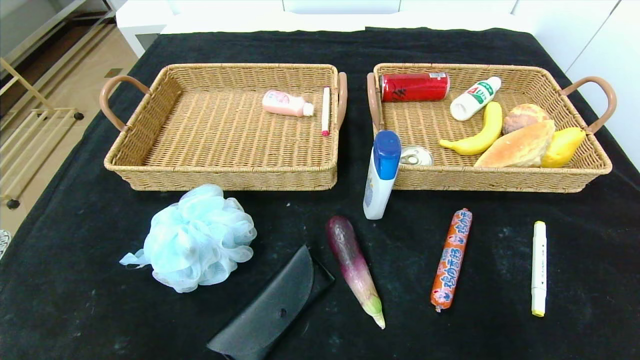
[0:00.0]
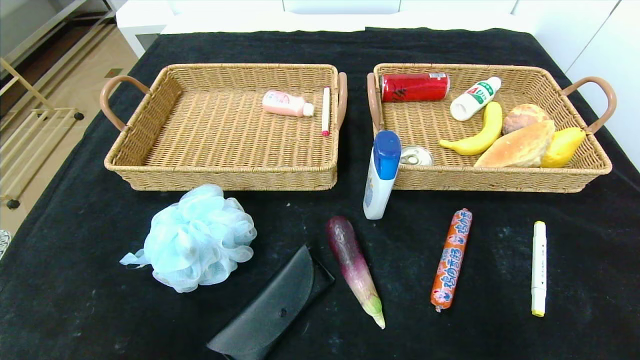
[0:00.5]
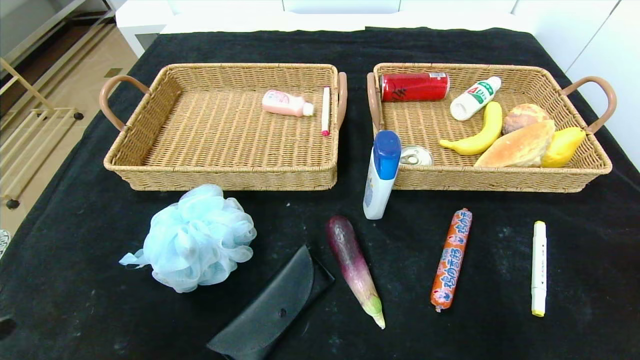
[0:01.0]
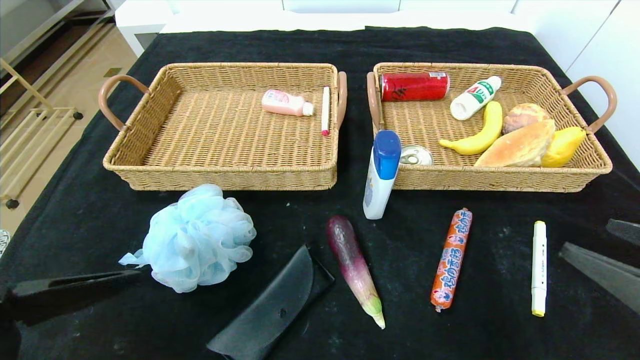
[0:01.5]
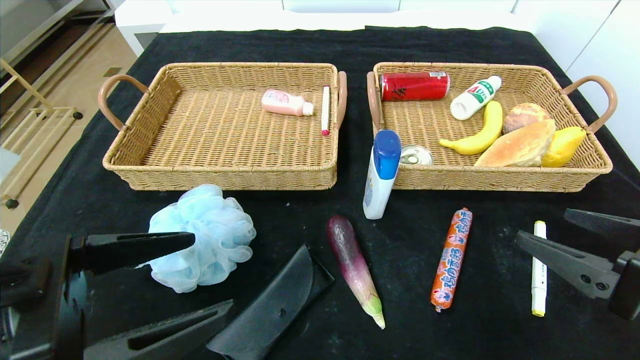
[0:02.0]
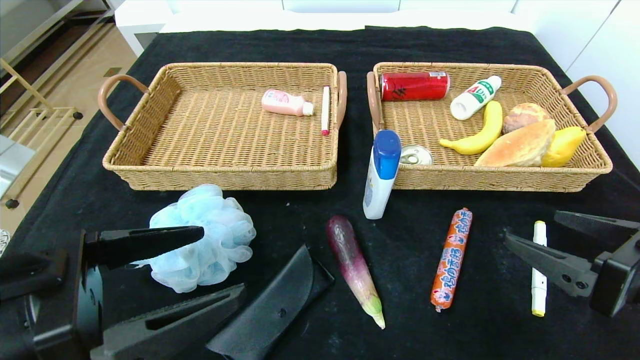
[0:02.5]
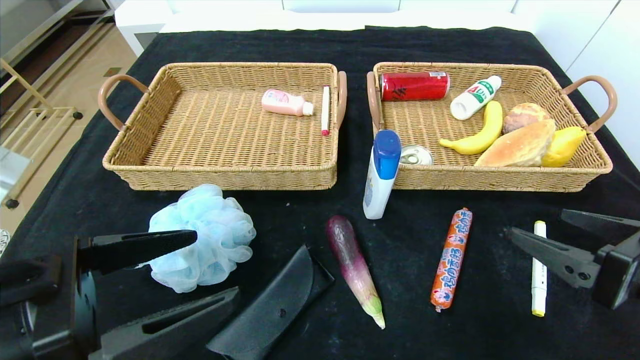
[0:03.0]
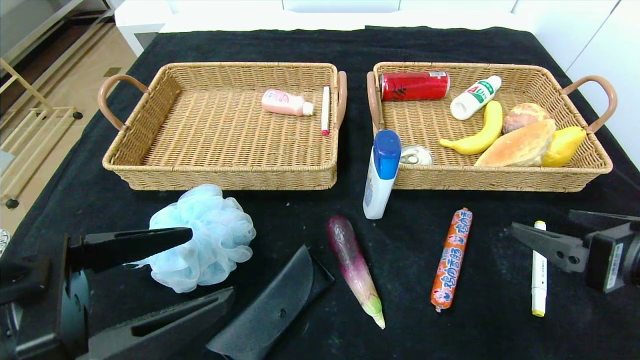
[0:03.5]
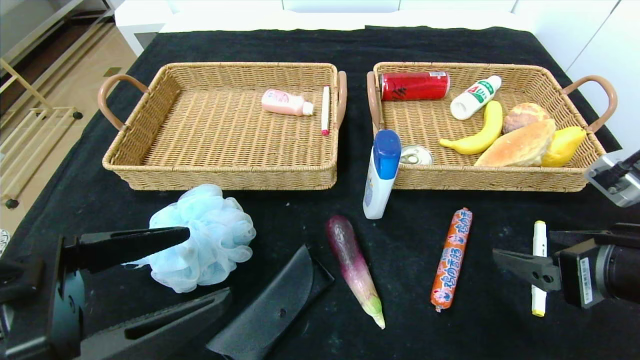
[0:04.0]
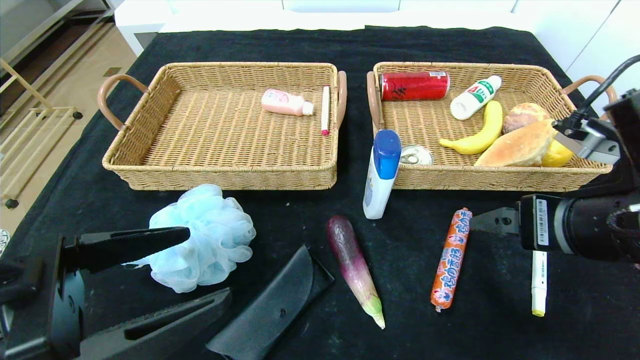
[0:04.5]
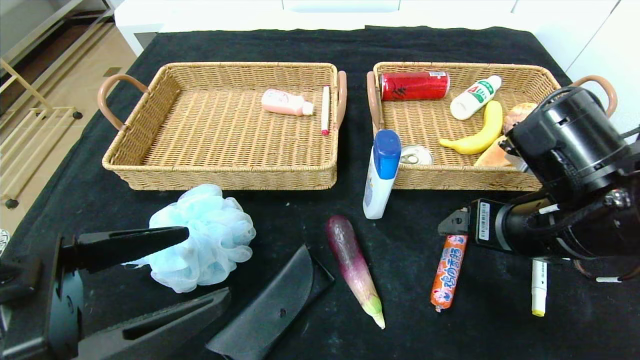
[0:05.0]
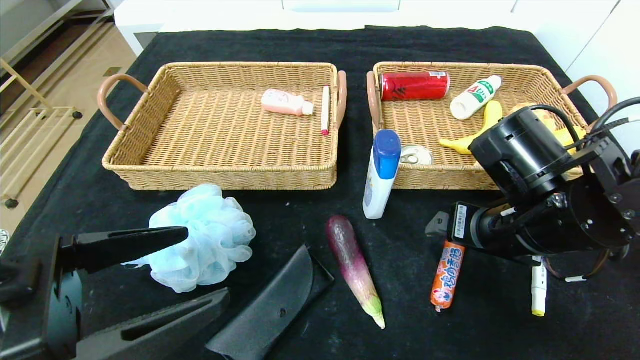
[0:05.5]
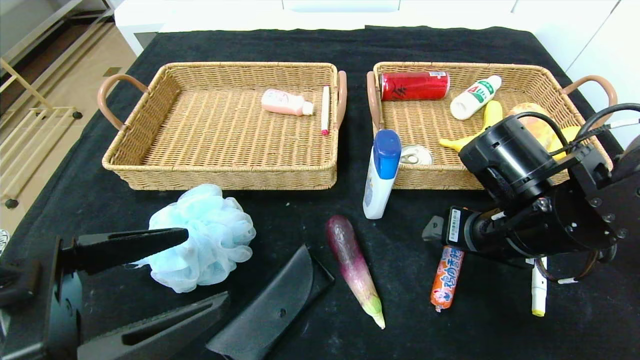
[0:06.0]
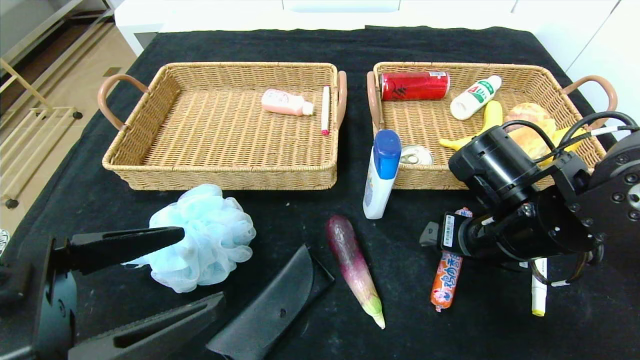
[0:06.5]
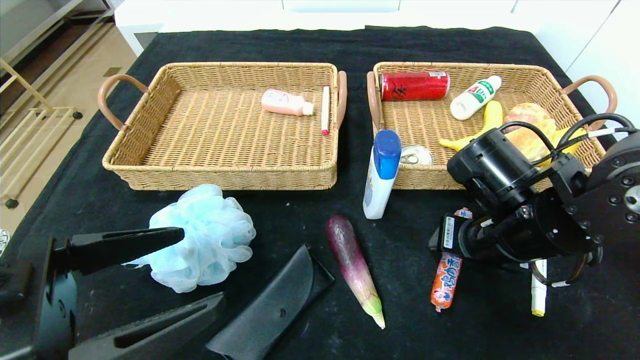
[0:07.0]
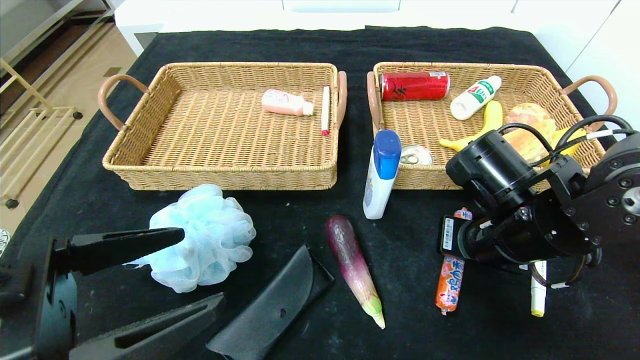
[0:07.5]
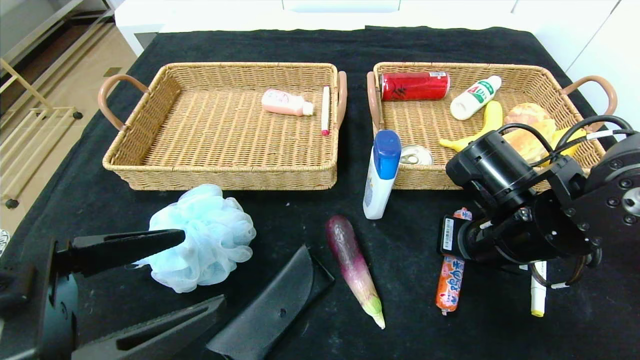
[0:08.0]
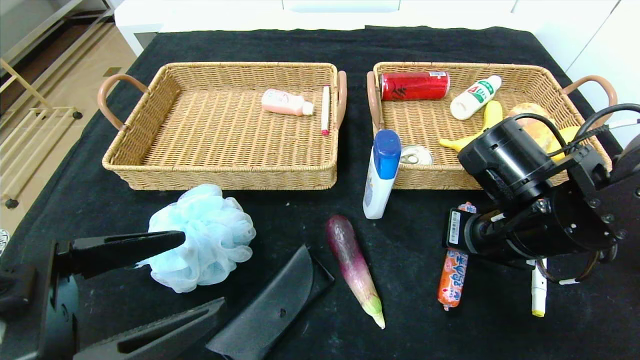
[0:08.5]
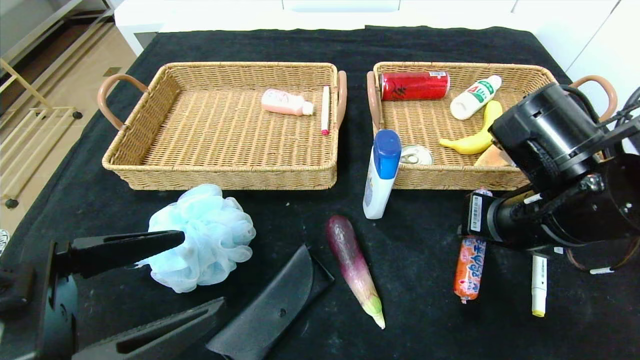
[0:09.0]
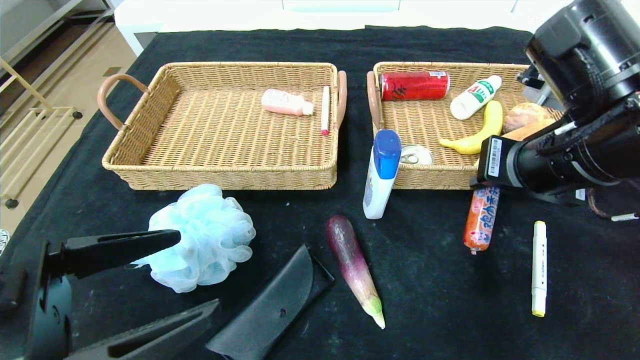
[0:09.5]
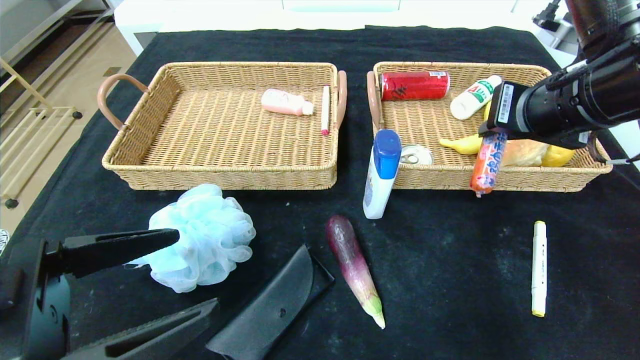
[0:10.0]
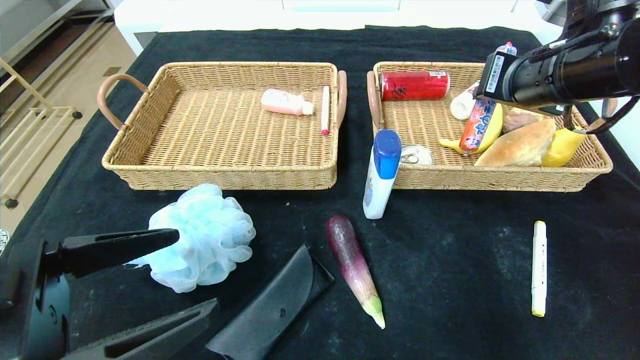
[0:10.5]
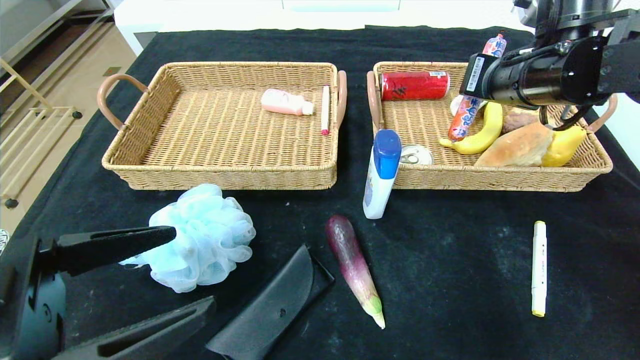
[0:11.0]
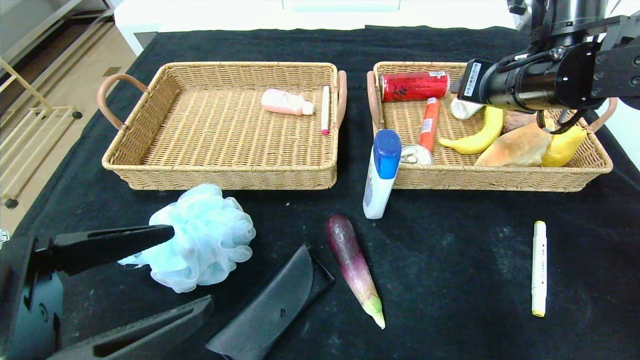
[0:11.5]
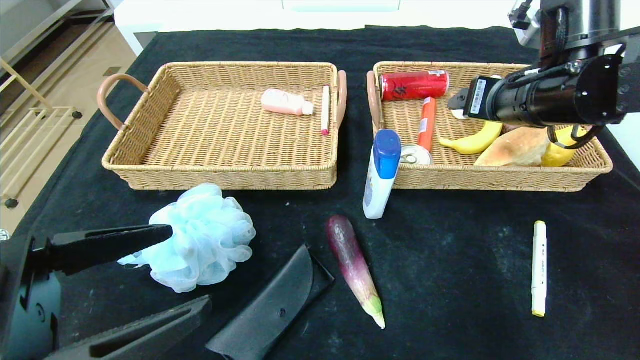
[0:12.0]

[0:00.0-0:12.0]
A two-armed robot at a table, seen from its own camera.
Step, 0.0 to 11.5 s: Grasp the sausage and put it in the right basket.
0.0 to 2.0 s: The right gripper goes some 25 cm forward, upward and to the left, while the left gripper goes roughly 25 cm upward, forward and to the right.
4.0 to 6.0 s: The right gripper heads forward and to the left, covering roughly 10 cm.
6.0 to 8.0 s: The right gripper closes up.
8.0 to 10.0 s: The right gripper goes roughly 15 cm upward.
10.0 to 12.0 s: The right gripper goes about 5 cm forward, and opens.

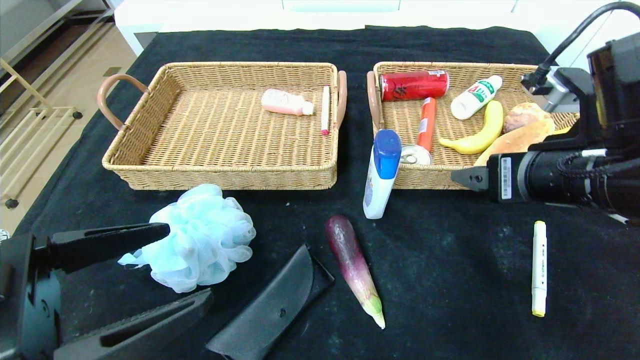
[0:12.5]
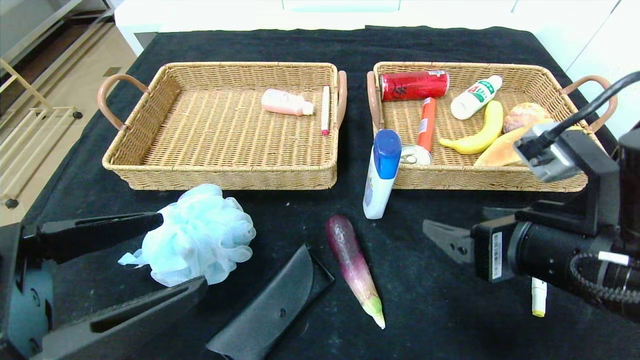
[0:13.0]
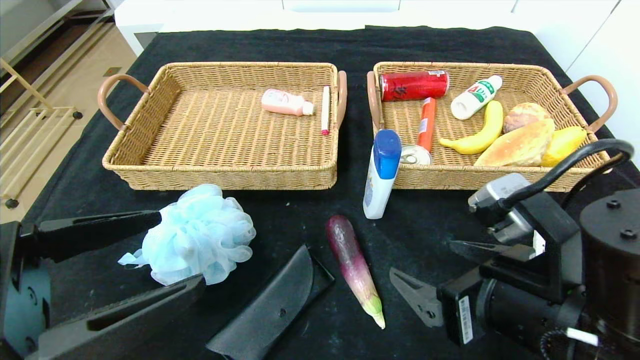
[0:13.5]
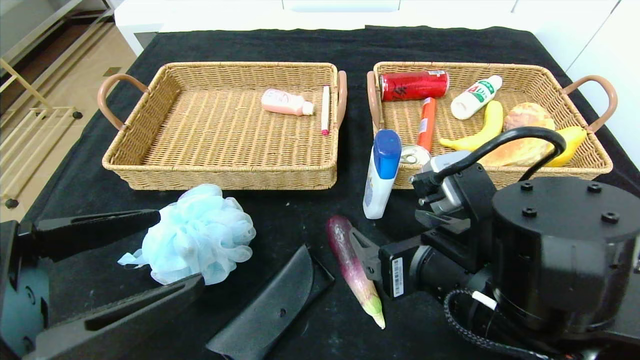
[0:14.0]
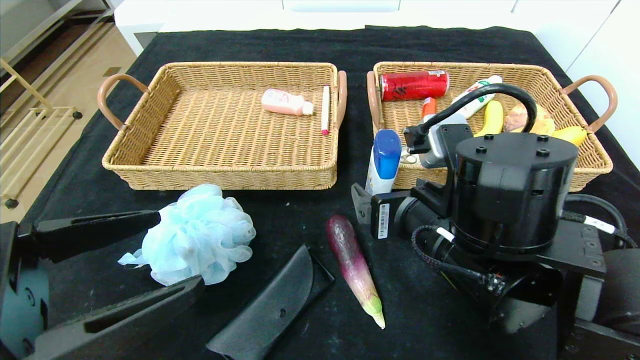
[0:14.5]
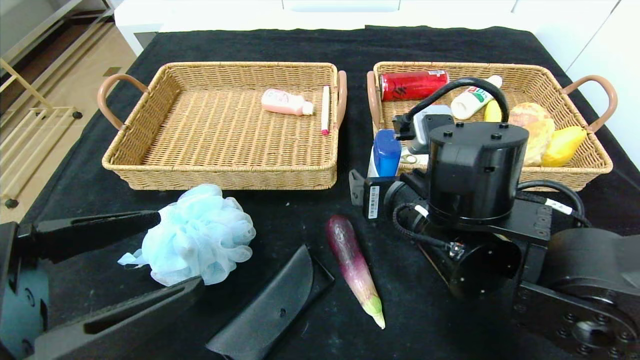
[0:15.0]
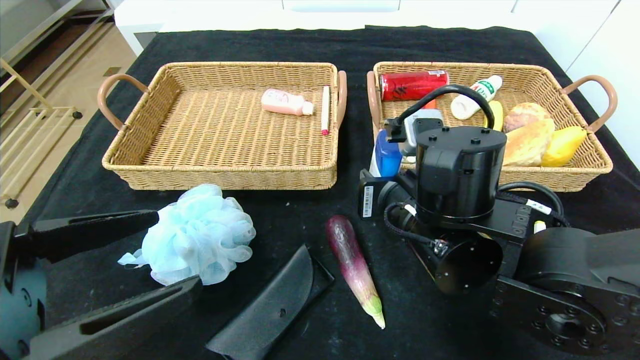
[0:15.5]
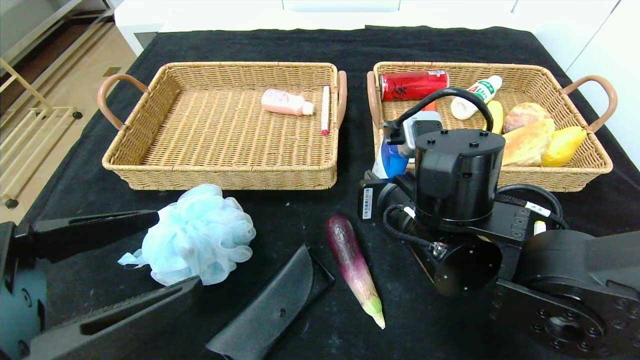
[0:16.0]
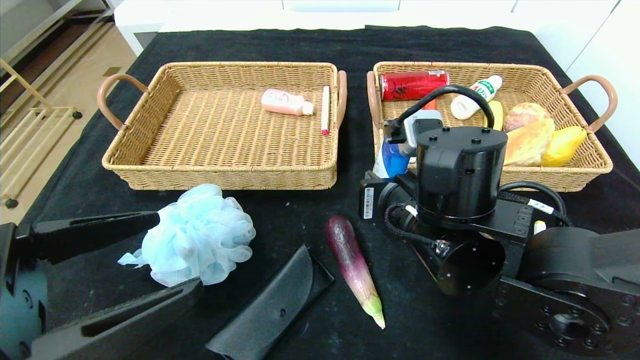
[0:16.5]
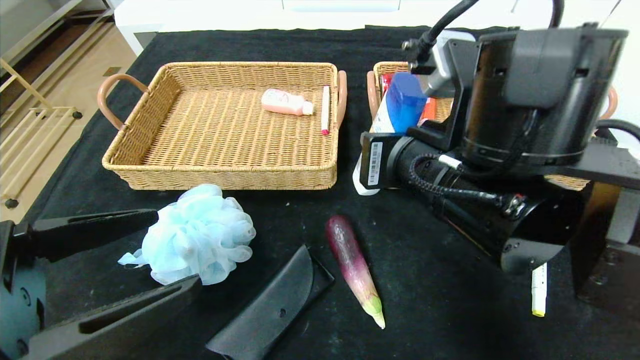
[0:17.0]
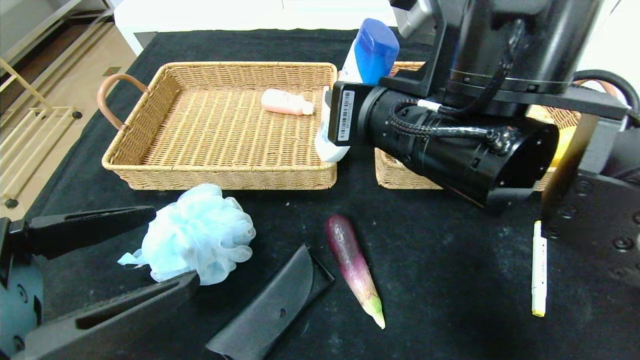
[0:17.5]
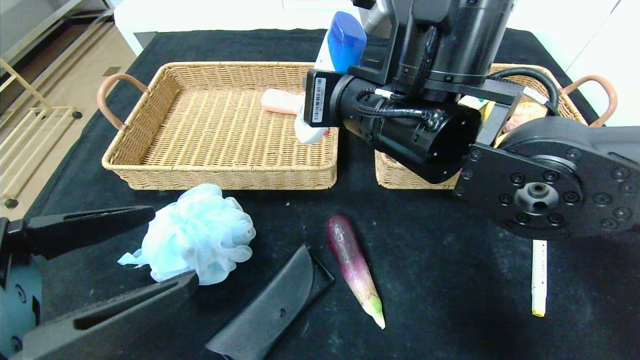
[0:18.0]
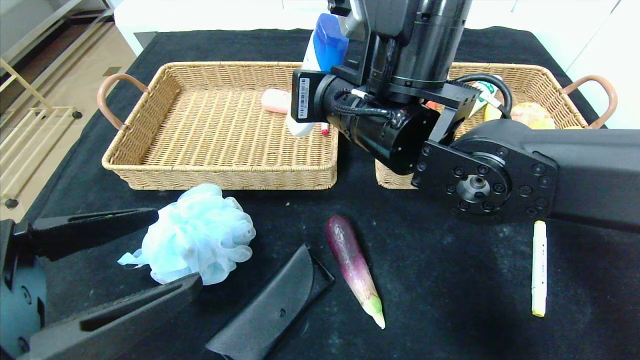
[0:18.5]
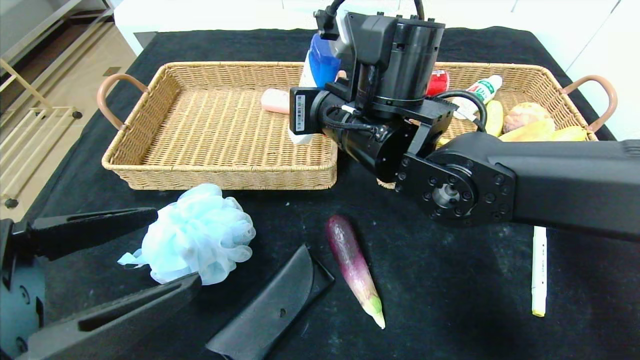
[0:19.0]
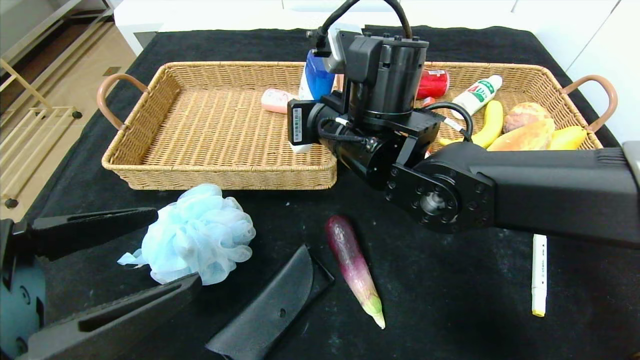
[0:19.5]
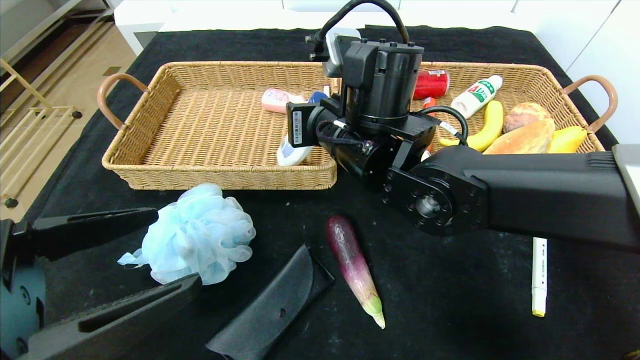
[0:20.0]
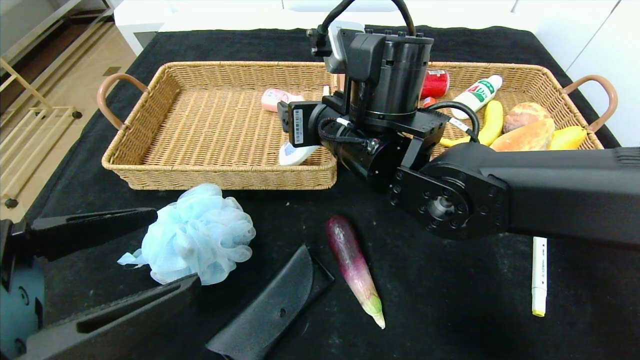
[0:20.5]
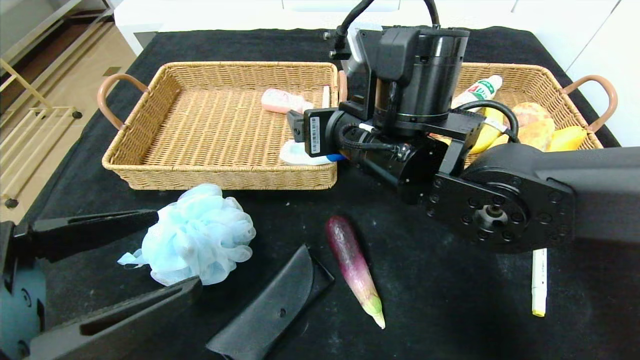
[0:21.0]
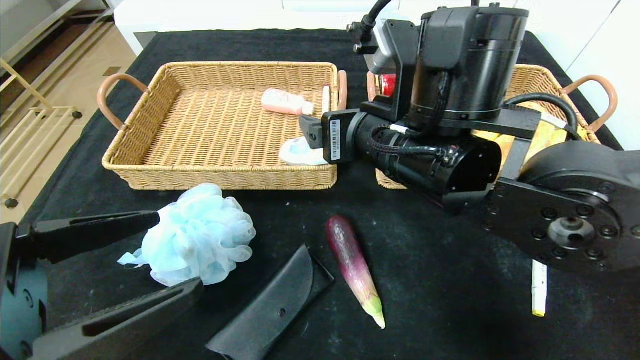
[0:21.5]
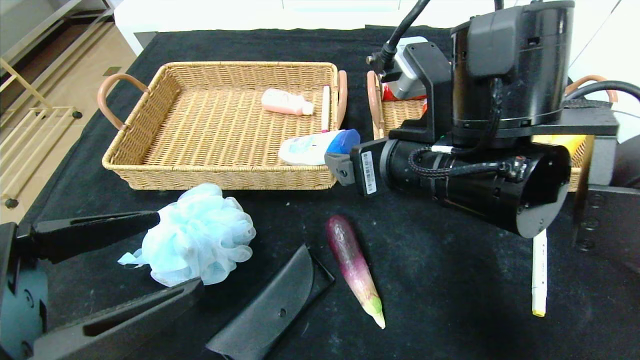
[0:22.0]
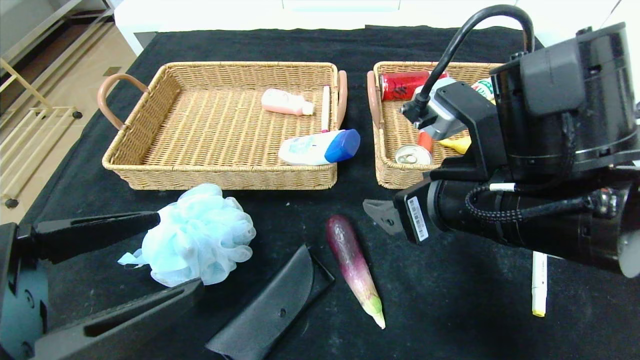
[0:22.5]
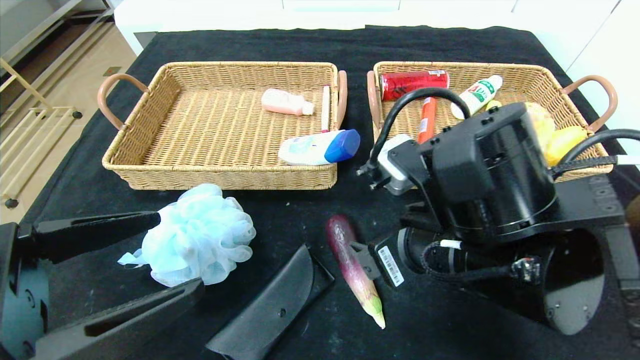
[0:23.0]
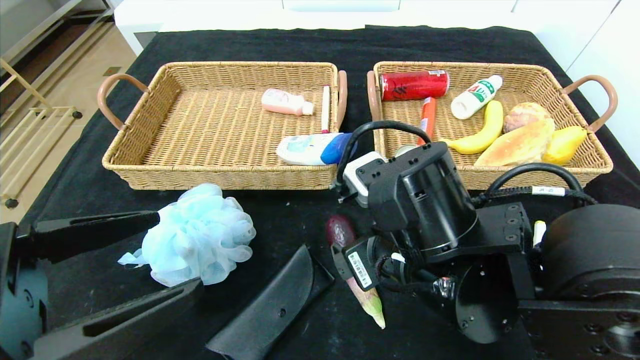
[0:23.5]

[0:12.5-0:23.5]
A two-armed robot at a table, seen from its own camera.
12.5 to 14.5 s: The right gripper travels to the left and downward by some 15 cm.
14.5 to 16.0 s: The right gripper closes.
16.0 to 18.0 s: The right gripper shifts roughly 10 cm upward.
18.0 to 20.0 s: The right gripper moves about 5 cm.
20.0 to 21.5 s: The right gripper shifts roughly 5 cm backward, and opens.
21.5 to 23.5 s: The right gripper heads downward and backward, covering some 10 cm.
